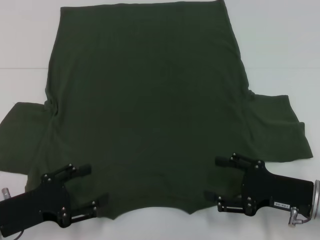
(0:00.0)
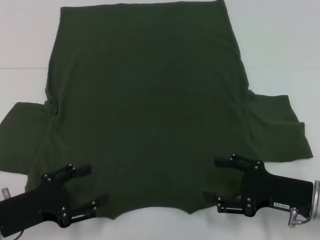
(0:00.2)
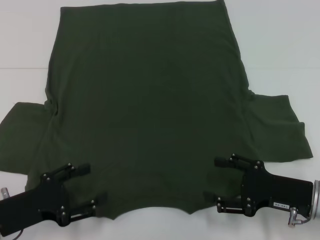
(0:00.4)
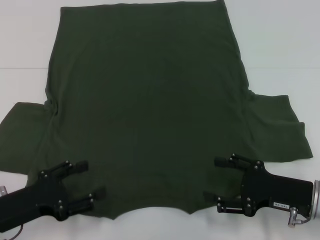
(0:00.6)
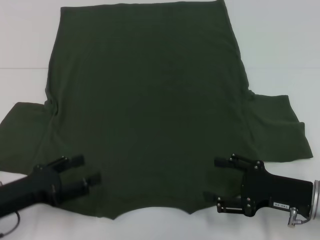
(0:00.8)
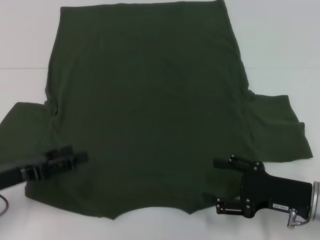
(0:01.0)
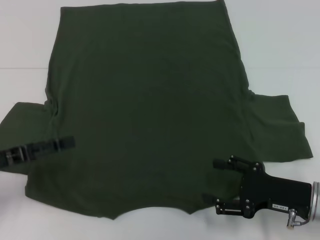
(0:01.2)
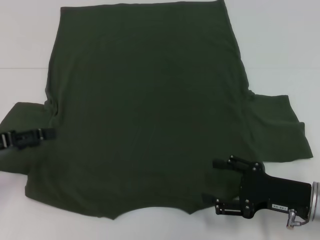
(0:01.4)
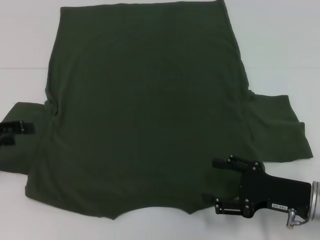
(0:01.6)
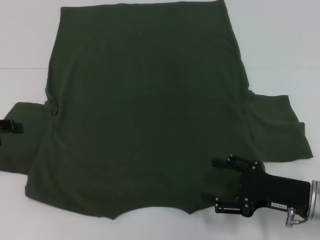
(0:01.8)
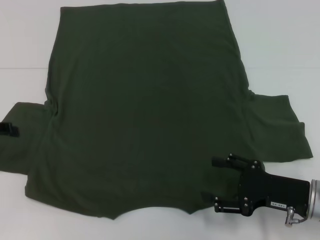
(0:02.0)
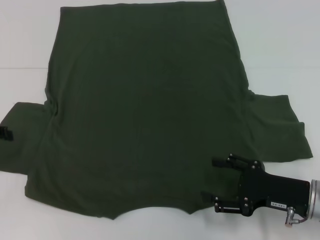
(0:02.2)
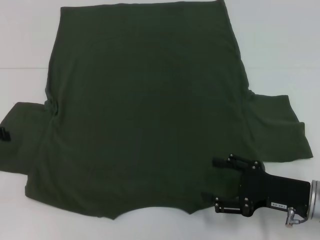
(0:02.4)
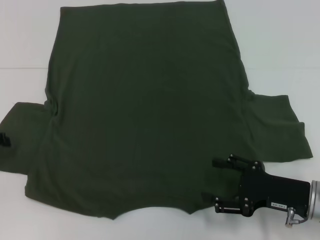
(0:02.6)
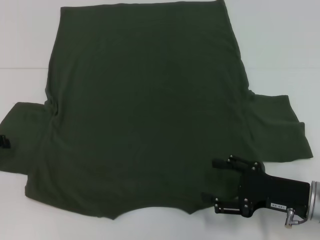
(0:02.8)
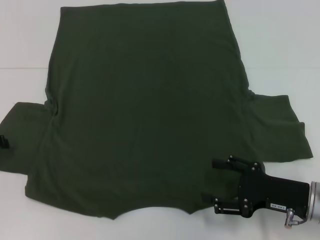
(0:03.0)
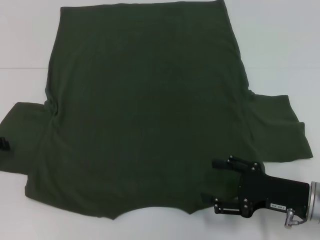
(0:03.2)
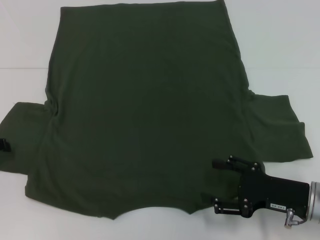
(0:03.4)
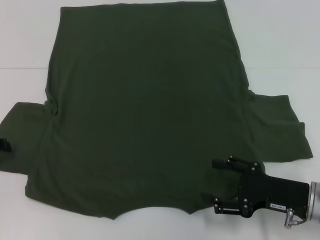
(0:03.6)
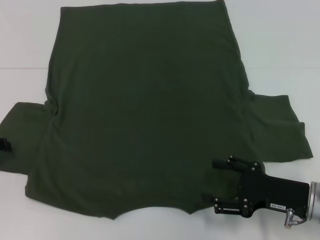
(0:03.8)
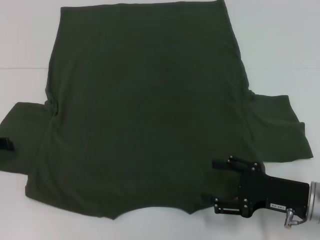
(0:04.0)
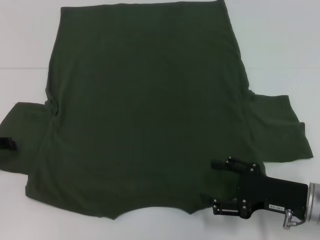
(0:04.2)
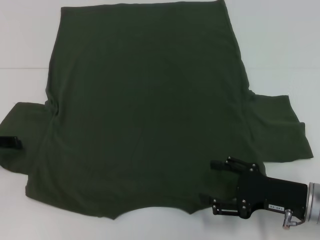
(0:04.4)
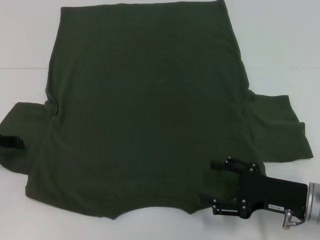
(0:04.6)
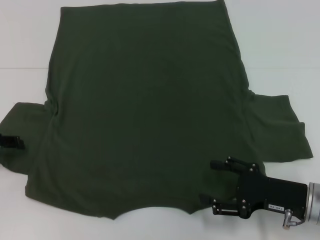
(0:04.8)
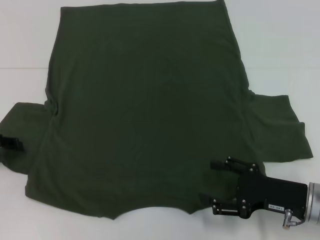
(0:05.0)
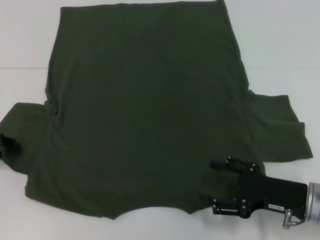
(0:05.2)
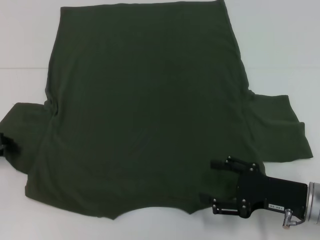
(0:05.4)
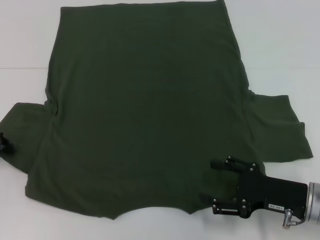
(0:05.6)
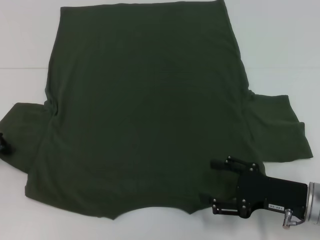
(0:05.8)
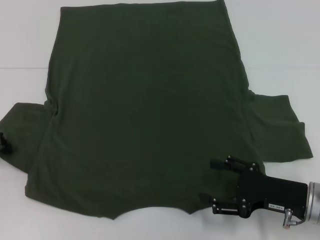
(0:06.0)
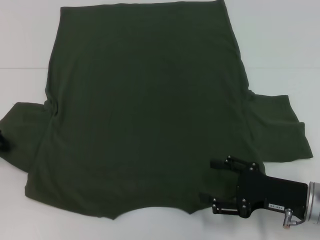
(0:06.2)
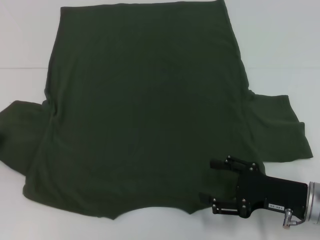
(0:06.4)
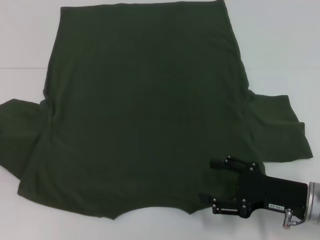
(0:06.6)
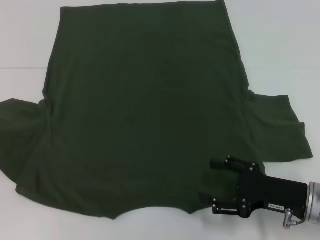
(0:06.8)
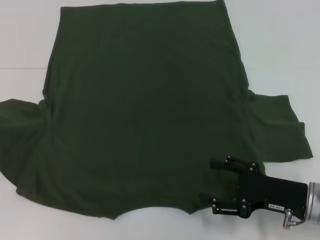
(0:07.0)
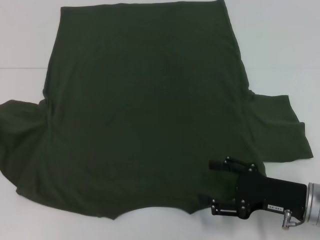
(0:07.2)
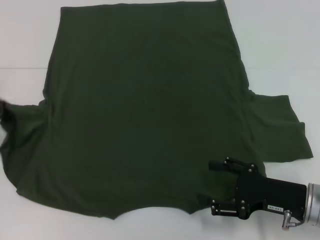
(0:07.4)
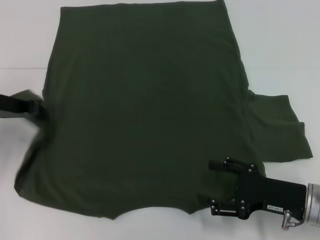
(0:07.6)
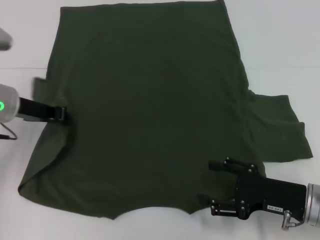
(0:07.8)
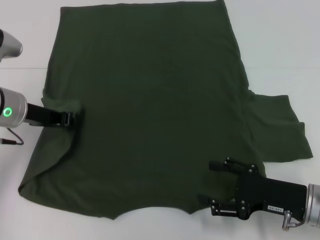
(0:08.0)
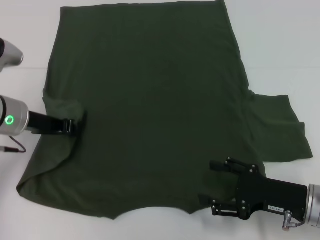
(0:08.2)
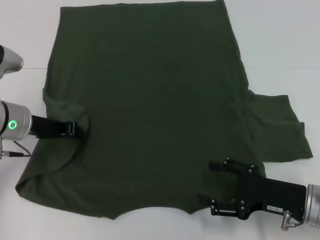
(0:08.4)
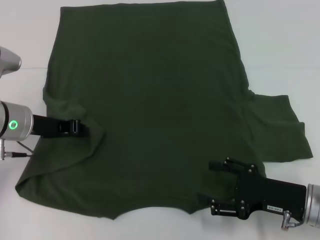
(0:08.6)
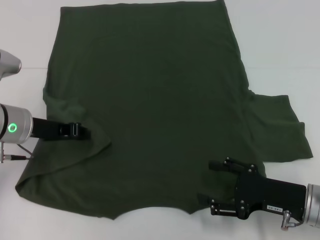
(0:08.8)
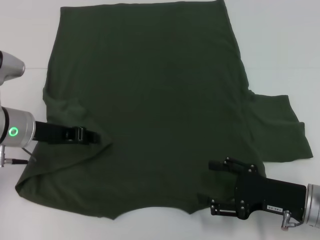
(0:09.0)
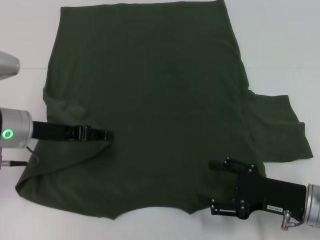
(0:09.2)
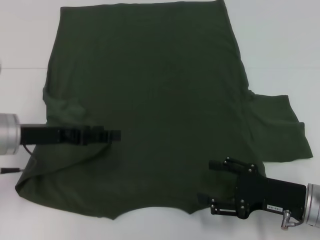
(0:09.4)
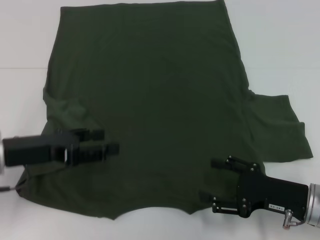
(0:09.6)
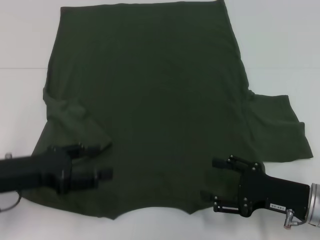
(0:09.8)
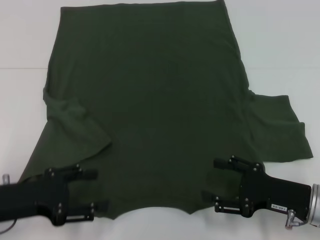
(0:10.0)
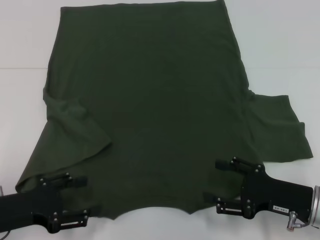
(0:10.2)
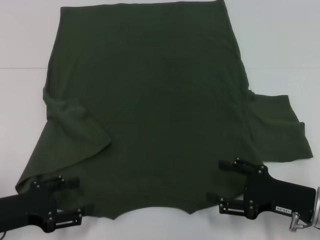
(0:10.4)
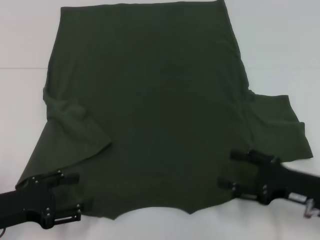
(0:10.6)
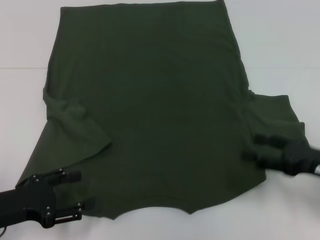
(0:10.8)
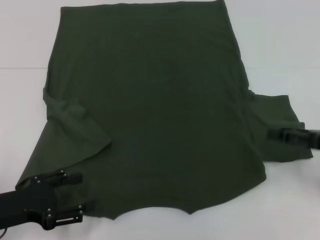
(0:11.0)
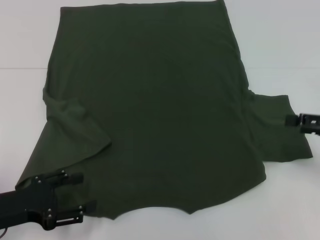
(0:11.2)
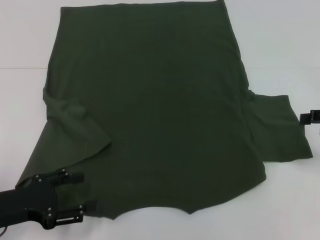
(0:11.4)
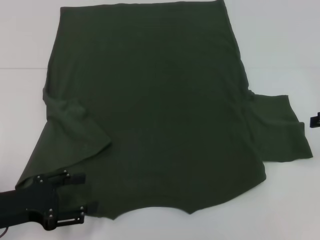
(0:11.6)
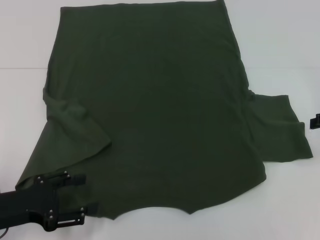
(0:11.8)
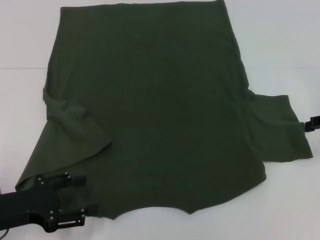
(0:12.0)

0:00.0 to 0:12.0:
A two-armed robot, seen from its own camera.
Step, 0:00.0 to 0:11.6: Fold the bottom left sleeve with your left hand.
0:00.0 to 0:01.6: The left gripper travels upward, to the left and forward by some 15 cm.
0:03.0 to 0:04.4: The grippers make only small movements.
0:04.4 to 0:06.0: The left gripper closes.
0:06.0 to 0:07.6: The left gripper heads to the right and upward, covering about 10 cm.
0:07.6 to 0:09.0: The left gripper is displaced to the right by approximately 5 cm.
0:09.0 to 0:10.4: The left gripper is displaced backward and downward by some 15 cm, and opens.
0:10.4 to 0:12.0: The right gripper goes roughly 20 cm upward, forward and to the right.

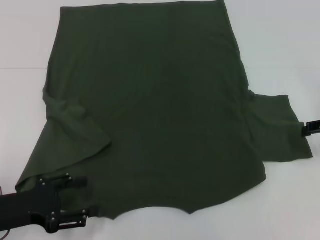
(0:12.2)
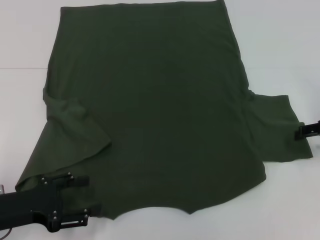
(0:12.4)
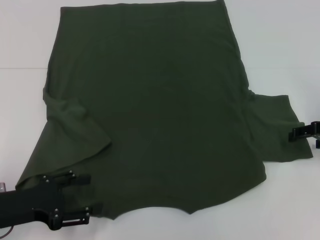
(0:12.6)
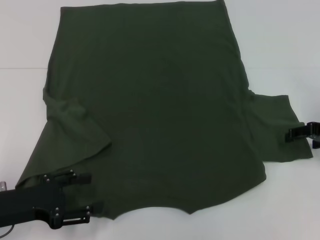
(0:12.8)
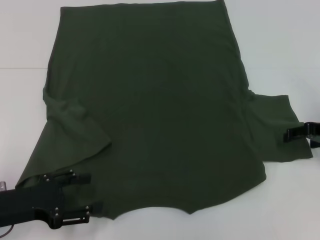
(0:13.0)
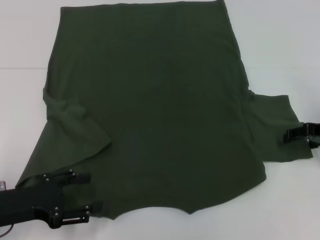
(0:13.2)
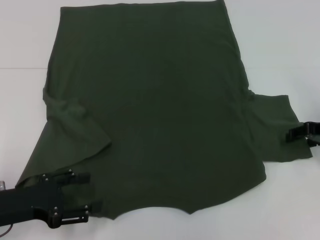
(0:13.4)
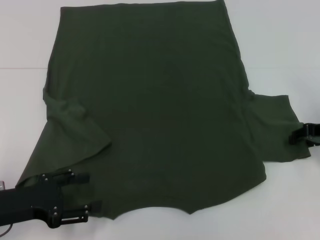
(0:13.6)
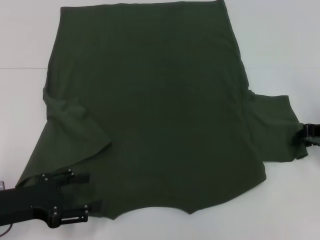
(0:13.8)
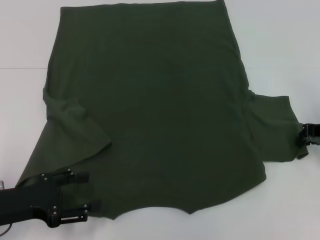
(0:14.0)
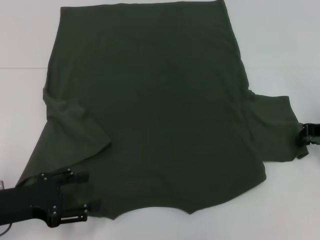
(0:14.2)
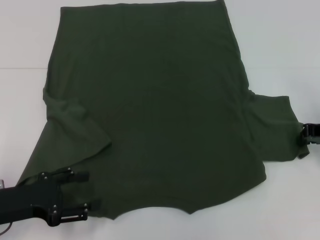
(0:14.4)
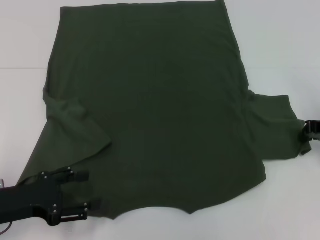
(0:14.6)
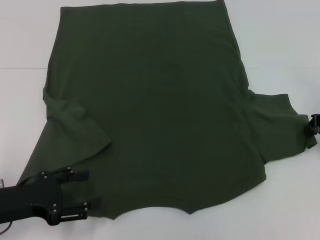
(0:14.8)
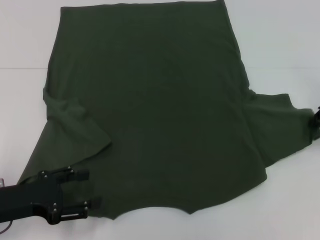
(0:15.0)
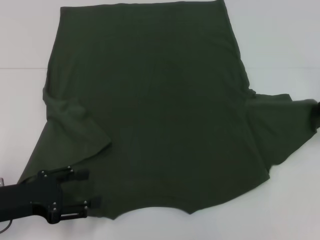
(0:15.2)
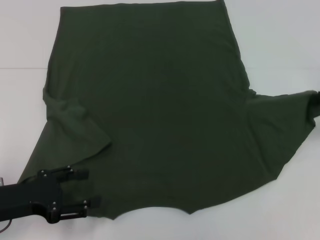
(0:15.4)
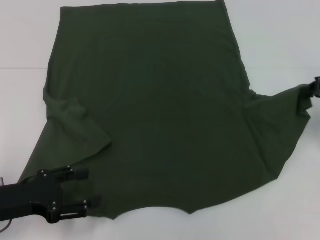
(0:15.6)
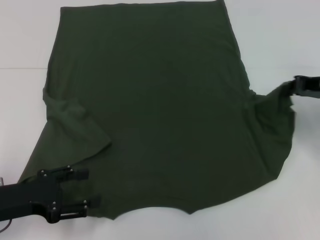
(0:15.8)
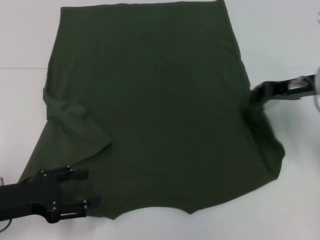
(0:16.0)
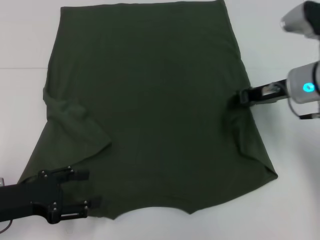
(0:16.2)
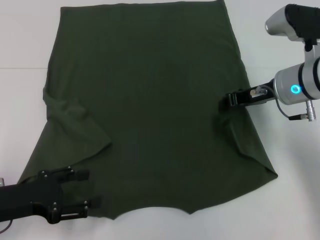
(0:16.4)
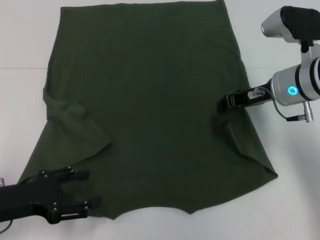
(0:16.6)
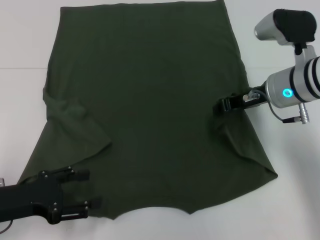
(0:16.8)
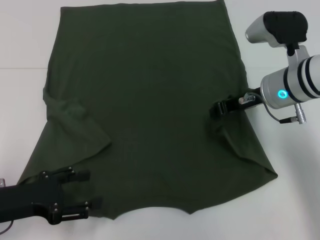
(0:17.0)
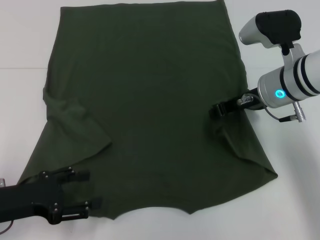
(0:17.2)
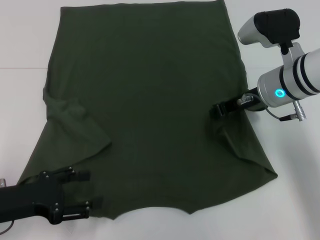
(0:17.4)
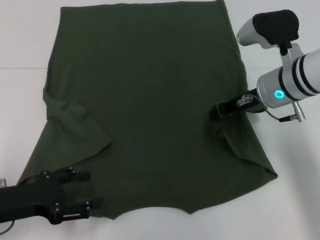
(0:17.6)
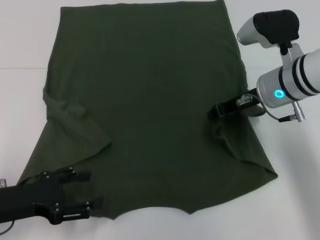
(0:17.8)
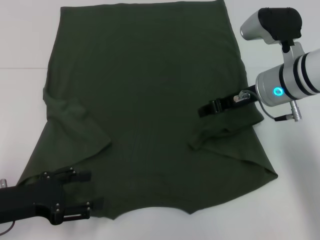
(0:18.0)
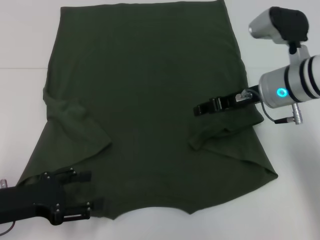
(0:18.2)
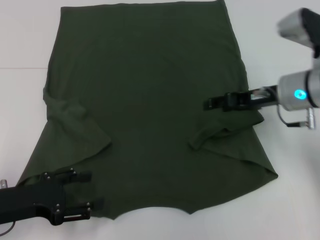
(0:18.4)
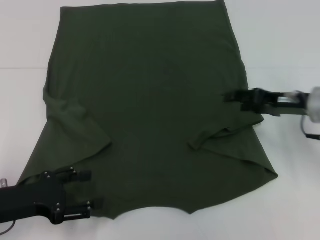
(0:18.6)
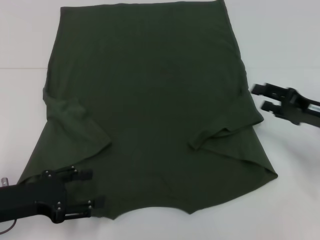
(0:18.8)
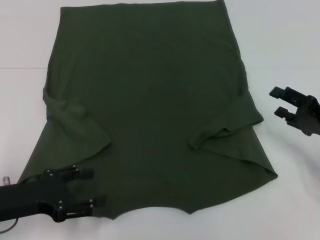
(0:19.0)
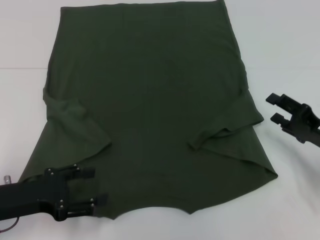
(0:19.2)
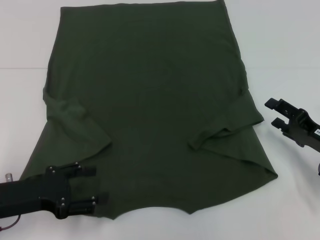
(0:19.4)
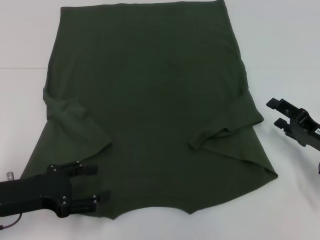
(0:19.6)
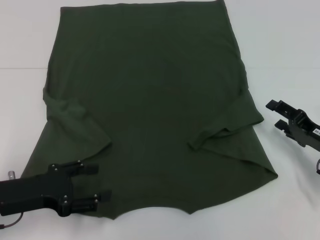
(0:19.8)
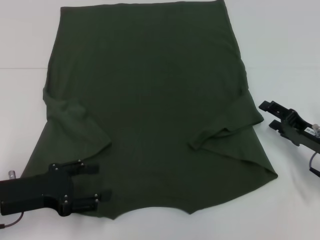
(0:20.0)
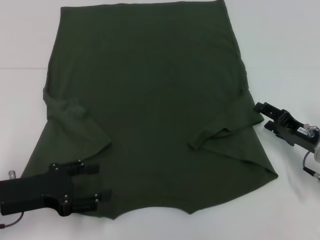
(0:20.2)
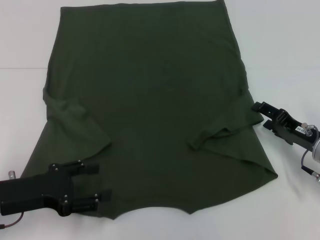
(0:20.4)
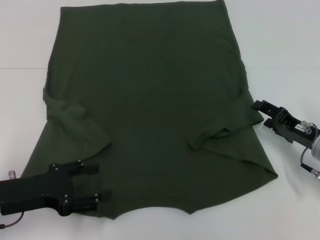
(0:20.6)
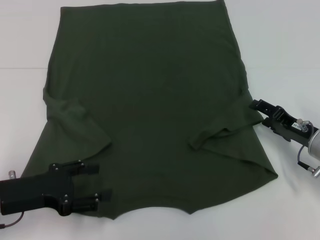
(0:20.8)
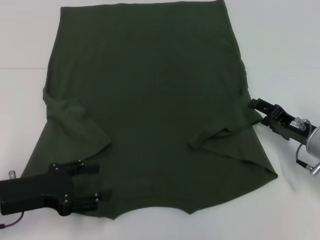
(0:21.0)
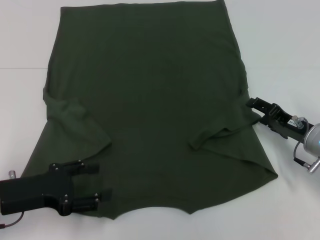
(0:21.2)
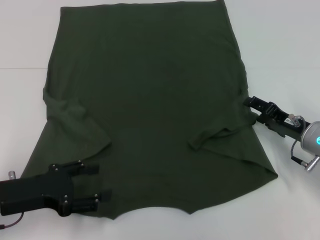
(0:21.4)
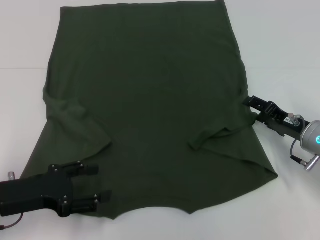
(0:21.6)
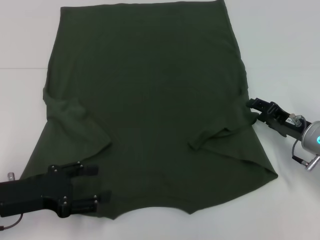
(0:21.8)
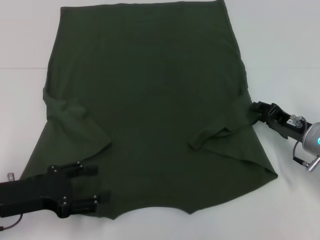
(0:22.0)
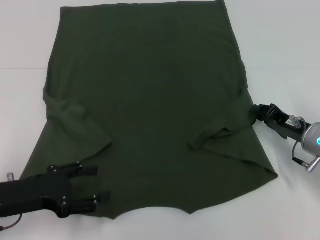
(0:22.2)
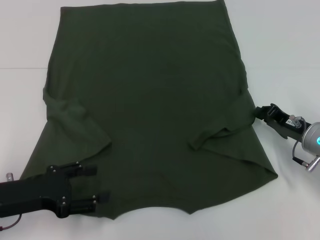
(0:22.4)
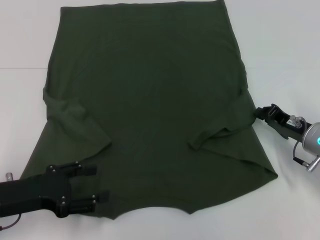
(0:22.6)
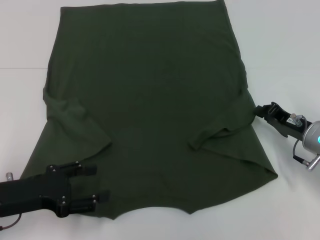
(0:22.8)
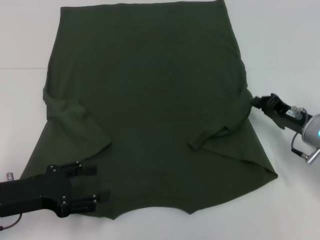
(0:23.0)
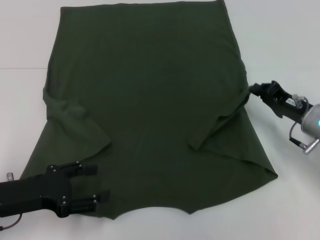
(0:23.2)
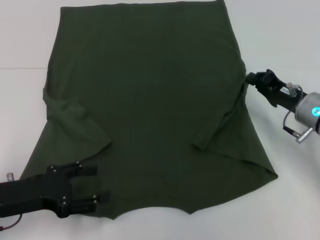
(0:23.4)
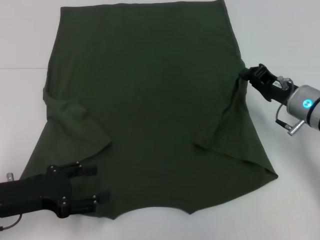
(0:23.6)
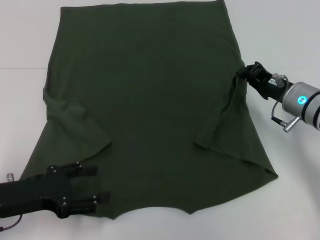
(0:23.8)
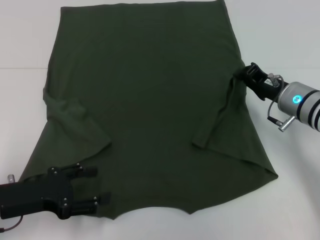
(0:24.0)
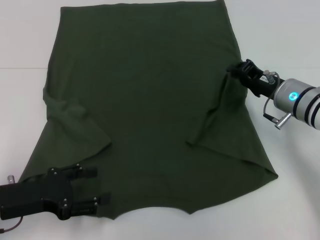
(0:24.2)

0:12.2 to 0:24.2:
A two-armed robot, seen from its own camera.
0:12.2 to 0:13.8: The right gripper closes up.
0:13.8 to 0:15.2: The right gripper closes its fingers.
0:15.2 to 0:16.6: The right gripper goes some 15 cm to the left.
0:16.6 to 0:18.2: The grippers stay close to where they were, moving slightly.
0:18.2 to 0:19.8: The right gripper heads to the right, downward and backward, covering approximately 20 cm, and opens its fingers.
0:19.8 to 0:21.2: The grippers move only a little.
0:21.2 to 0:22.6: The right gripper closes its fingers.
0:22.6 to 0:24.2: The right gripper is displaced forward by roughly 5 cm.
